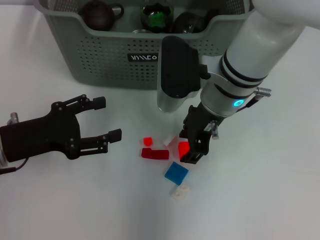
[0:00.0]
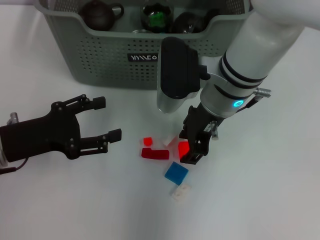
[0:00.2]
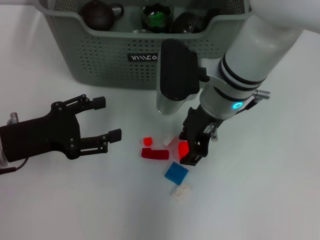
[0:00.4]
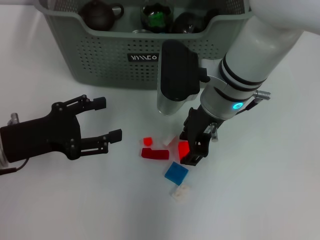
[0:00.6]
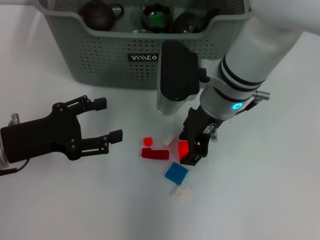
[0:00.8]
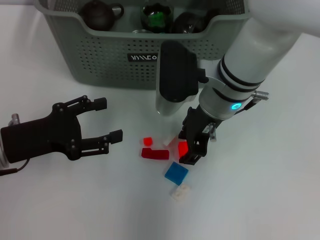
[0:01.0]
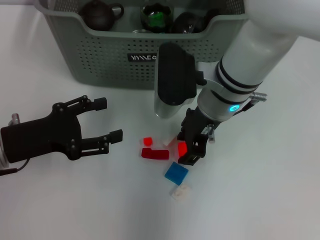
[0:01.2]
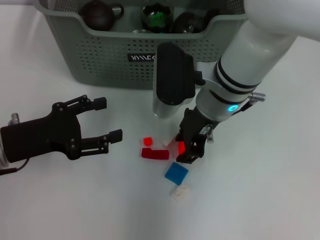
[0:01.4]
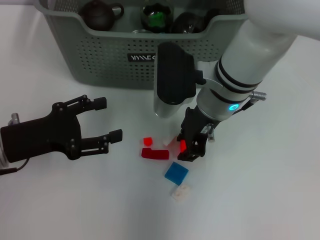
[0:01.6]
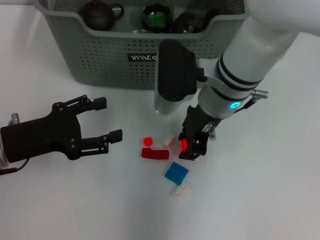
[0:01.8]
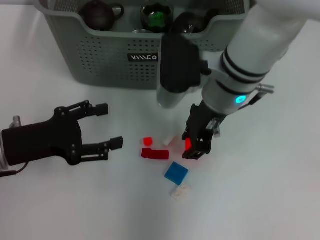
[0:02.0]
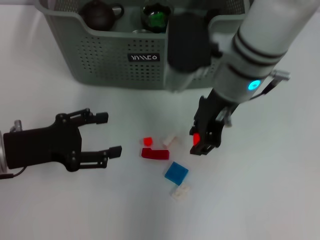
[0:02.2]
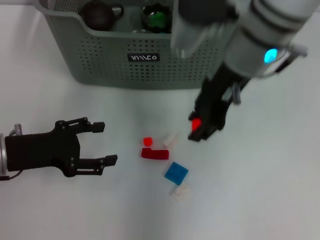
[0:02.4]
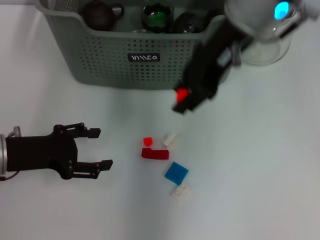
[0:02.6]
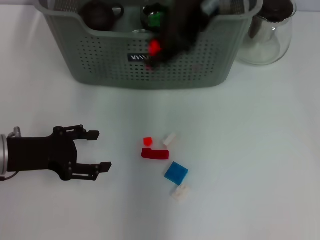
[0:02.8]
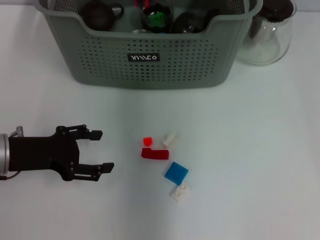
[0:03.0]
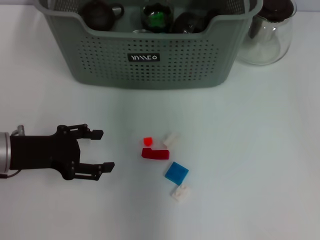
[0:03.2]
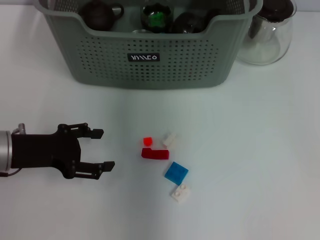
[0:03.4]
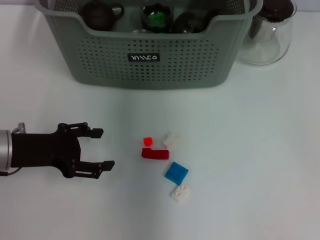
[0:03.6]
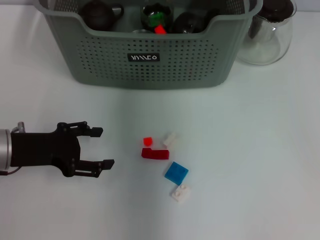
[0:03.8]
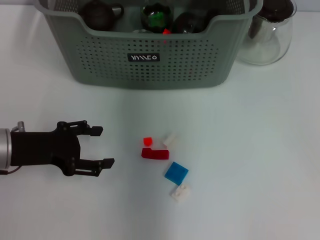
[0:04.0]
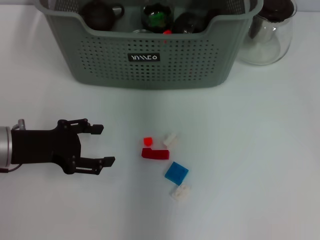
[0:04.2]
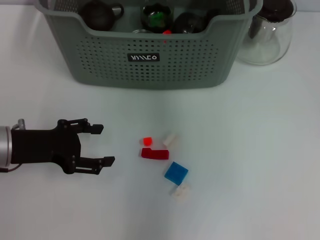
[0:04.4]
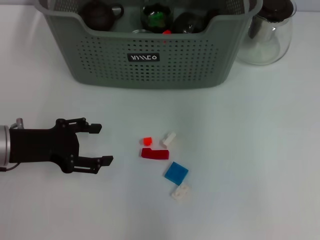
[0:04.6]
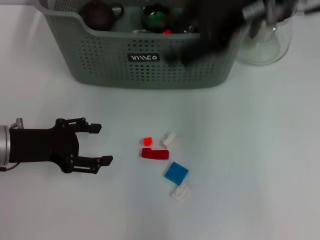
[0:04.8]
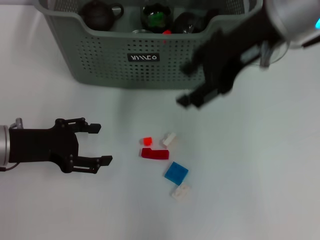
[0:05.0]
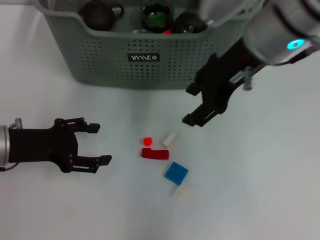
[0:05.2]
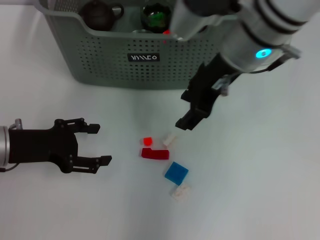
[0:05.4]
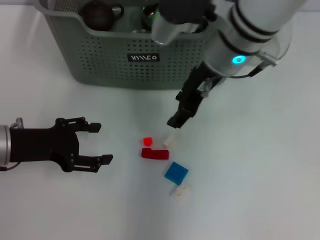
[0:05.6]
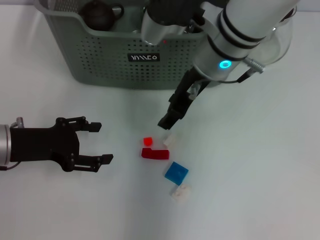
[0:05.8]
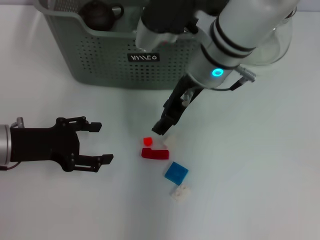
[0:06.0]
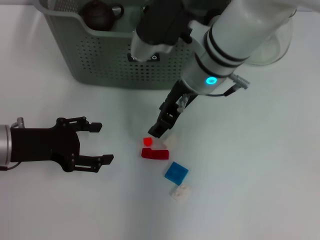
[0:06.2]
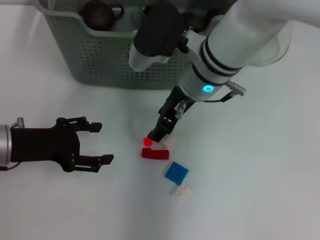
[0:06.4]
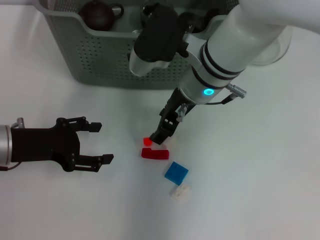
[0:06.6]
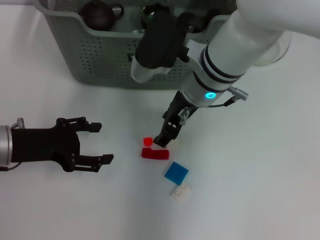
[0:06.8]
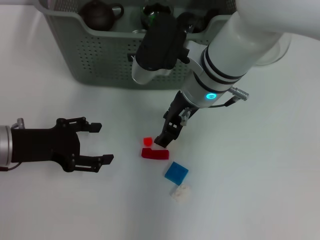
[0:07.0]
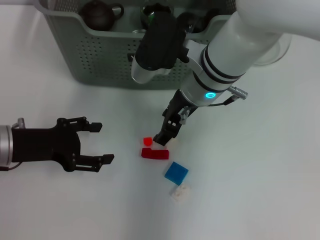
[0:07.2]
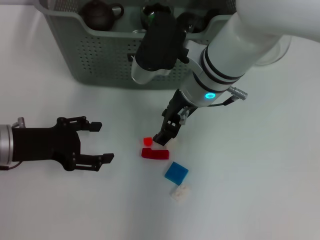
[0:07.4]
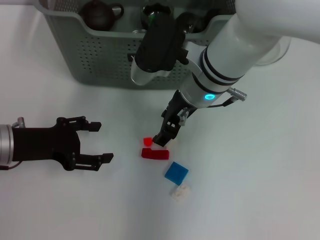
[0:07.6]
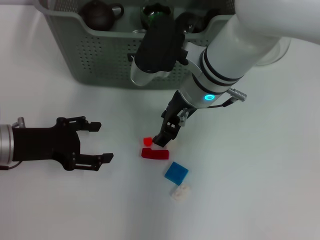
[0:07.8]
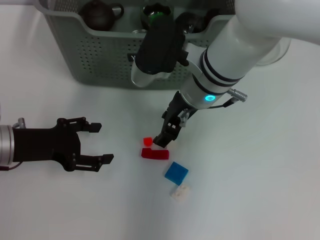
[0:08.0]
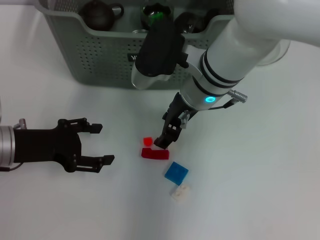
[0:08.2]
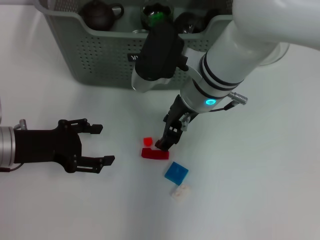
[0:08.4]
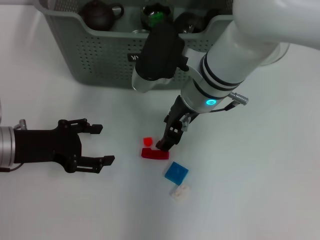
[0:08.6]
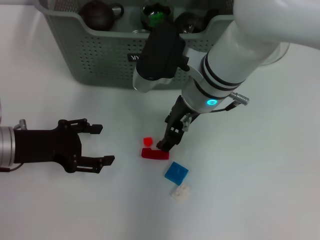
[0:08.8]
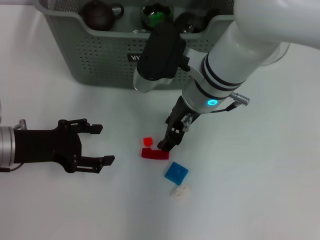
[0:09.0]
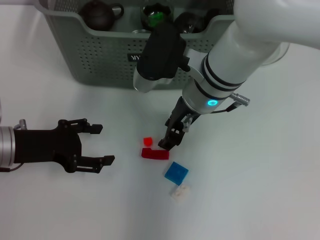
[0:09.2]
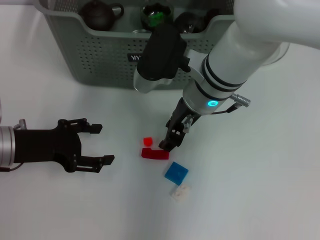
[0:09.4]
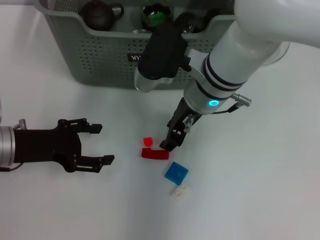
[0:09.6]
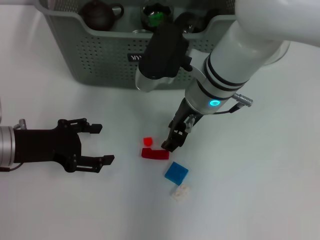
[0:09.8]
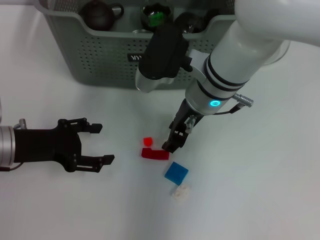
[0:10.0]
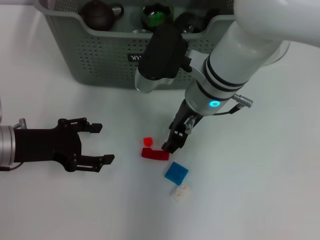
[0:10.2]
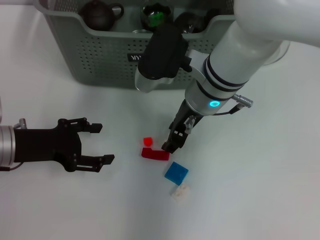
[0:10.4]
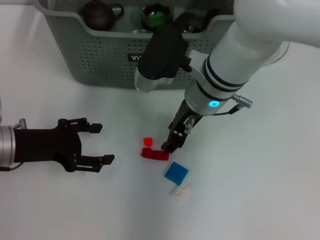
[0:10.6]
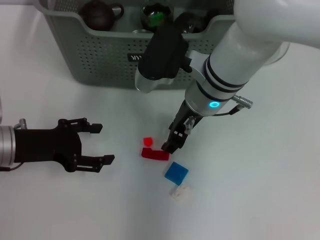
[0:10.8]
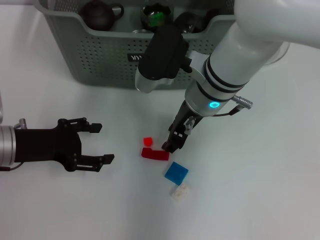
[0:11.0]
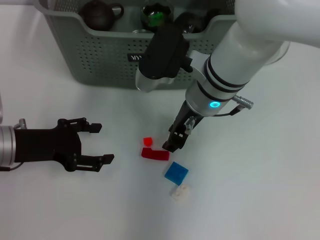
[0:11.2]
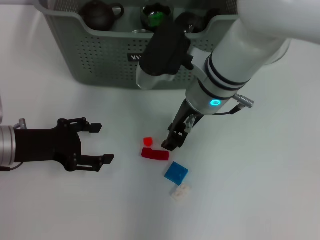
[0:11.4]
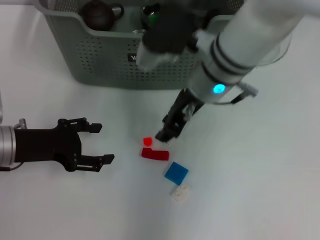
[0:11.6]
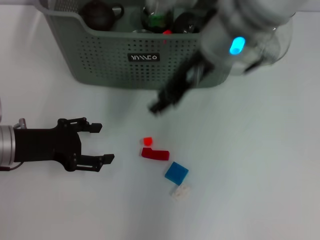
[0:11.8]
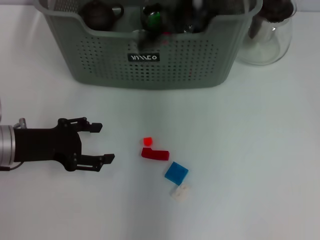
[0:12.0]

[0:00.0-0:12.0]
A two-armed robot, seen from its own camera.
Task of the whole recording: pick up the teacup on the table and place it into the storage bin, pick up the block on the table and place it into the storage bin.
Step, 0:01.6 to 0:03.8: Place the orange block in the storage box with right gripper.
Step, 0:04.0 to 0:11.2: Grasp the white block with right gripper.
0:00.0 to 0:01.6: Neither gripper changes place.
0:01.6 to 0:03.0: The right gripper moves upward, some 20 cm.
0:03.0 to 0:04.4: The right gripper reaches roughly 10 cm downward, then returns, and opens.
0:04.4 to 0:06.0: The right gripper heads downward, covering roughly 15 cm.
0:06.0 to 0:07.6: There are only small adjustments of the grippers.
0:07.6 to 0:10.4: The two grippers keep their place.
0:10.4 to 0:12.0: The right gripper travels upward by about 20 cm.

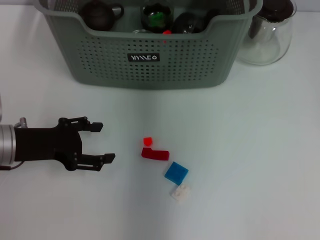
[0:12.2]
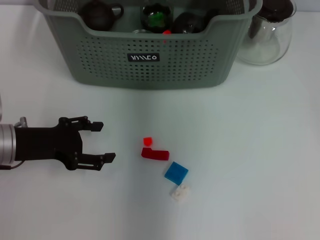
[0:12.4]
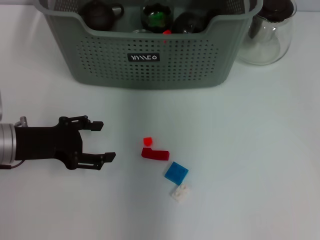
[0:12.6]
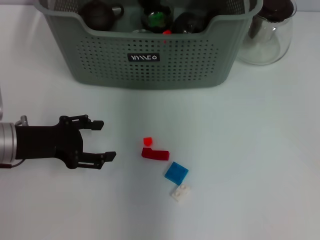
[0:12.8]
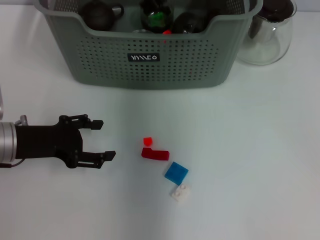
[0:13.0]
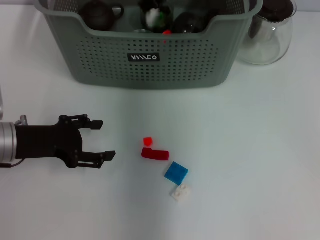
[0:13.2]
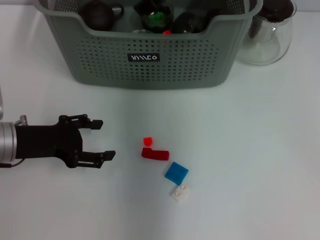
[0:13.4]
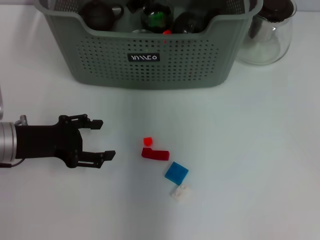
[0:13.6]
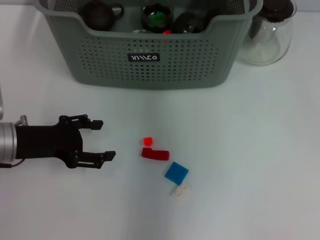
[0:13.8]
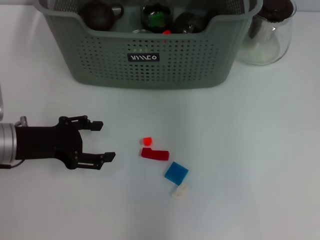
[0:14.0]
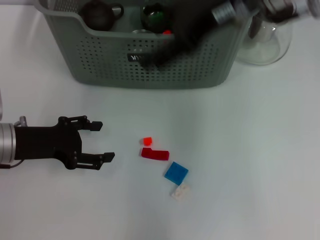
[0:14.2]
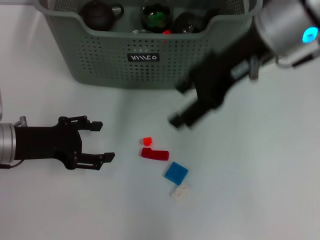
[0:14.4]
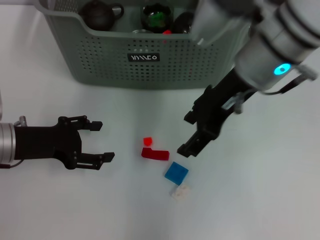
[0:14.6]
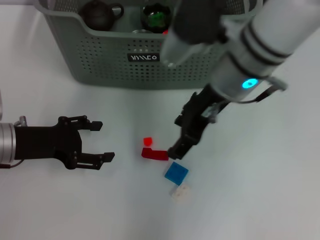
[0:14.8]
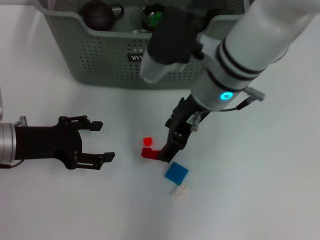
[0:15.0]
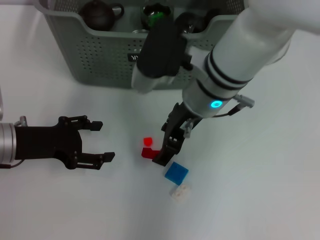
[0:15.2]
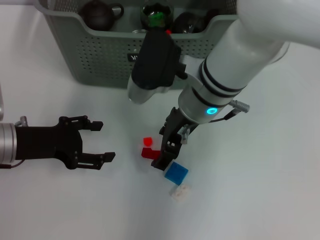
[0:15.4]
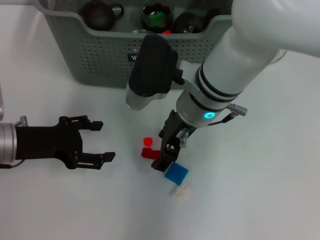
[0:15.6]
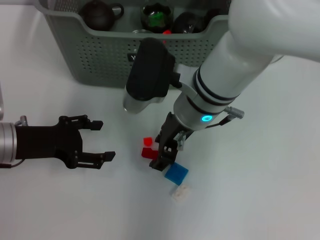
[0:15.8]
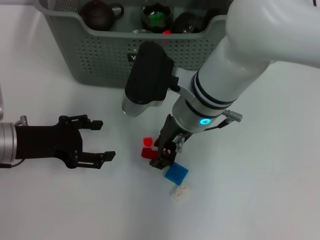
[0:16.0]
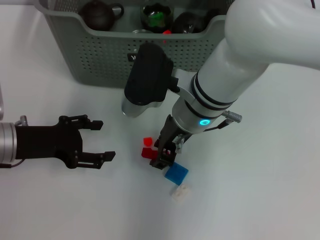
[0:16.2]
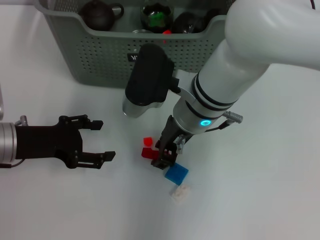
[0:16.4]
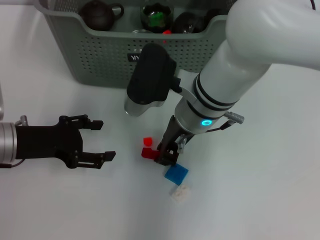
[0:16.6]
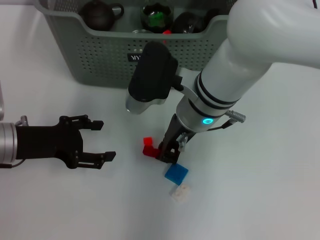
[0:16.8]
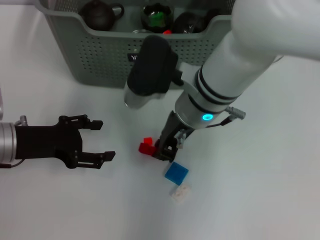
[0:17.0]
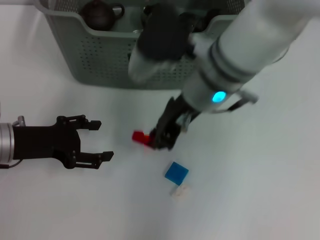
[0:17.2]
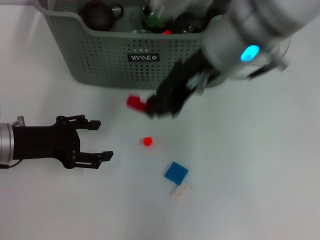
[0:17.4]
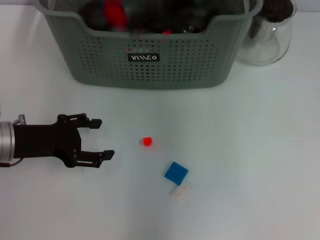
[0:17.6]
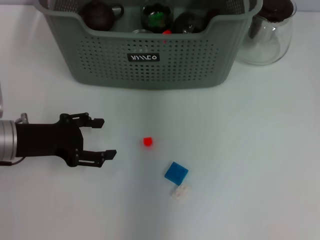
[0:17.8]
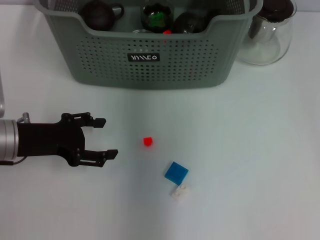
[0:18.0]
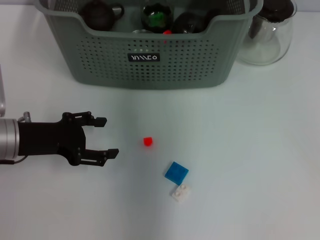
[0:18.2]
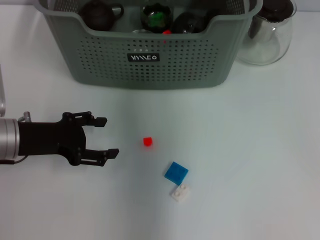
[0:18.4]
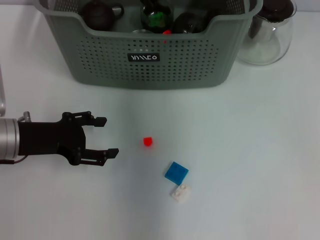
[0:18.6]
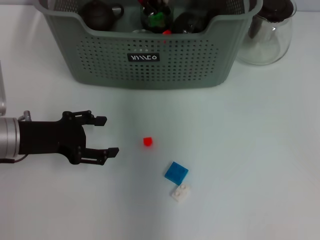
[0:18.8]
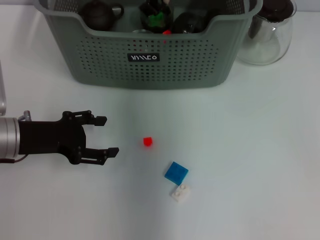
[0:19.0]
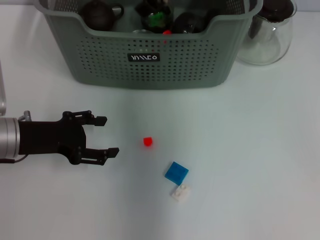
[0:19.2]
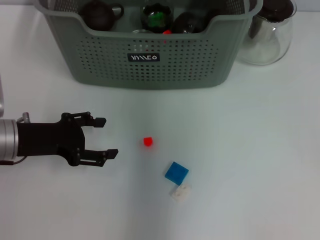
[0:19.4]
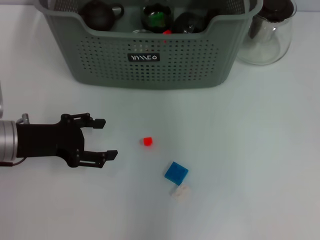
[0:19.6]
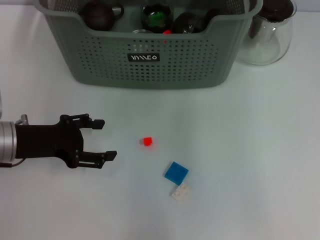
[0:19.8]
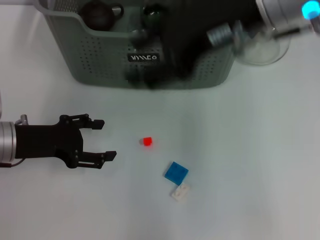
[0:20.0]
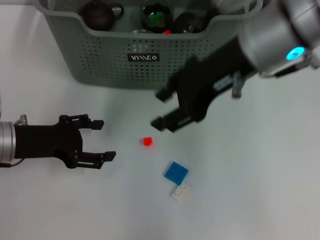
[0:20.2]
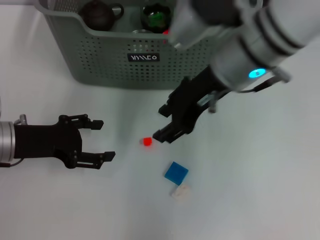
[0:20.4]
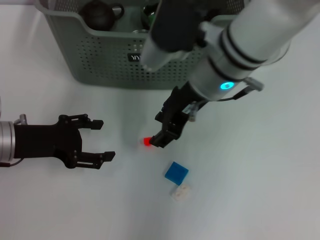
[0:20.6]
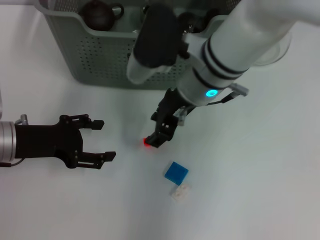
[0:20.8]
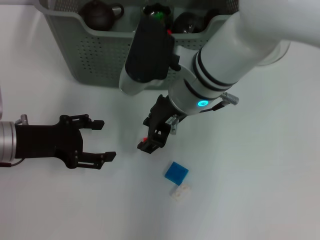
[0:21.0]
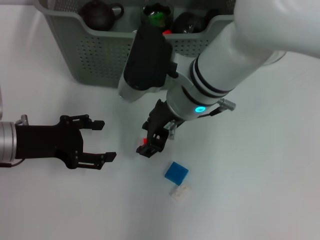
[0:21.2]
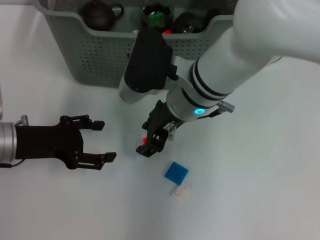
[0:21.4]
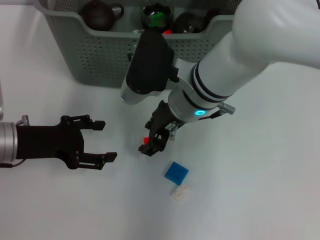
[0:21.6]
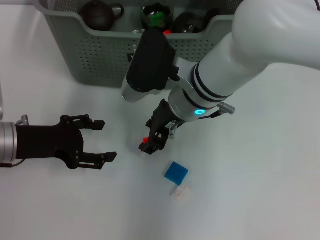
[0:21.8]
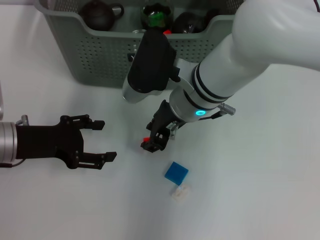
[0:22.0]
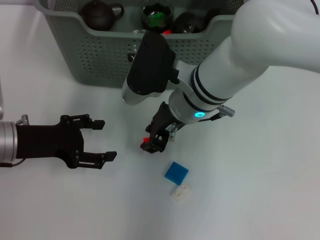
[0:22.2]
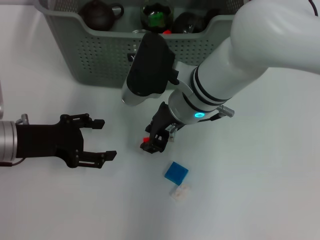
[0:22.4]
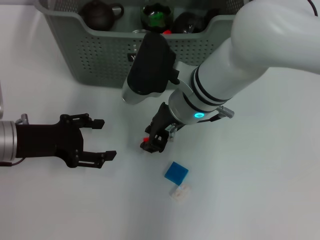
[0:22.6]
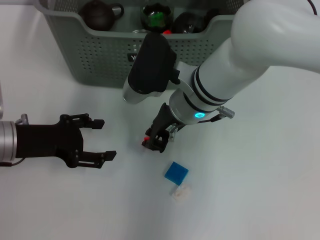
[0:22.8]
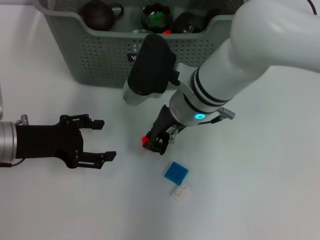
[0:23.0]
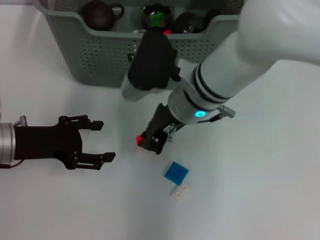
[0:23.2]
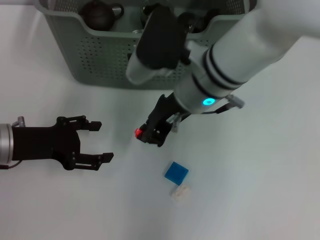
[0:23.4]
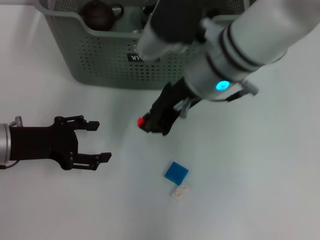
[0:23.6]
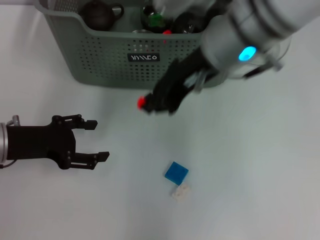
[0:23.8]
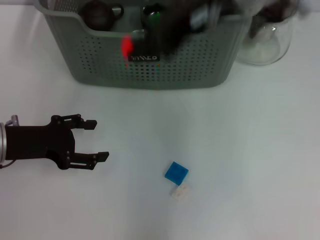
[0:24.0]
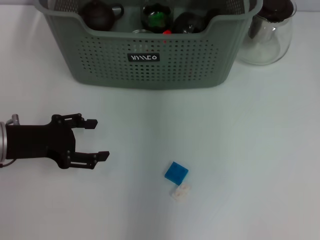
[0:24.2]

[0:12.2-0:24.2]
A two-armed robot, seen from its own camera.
Task of the whole recording: pick up the teacup on the table and place it into the storage bin, pick up the block on the table and place it into the storage bin.
Step, 0:12.2 to 0:13.2: Place the white block in the storage box with right gripper.
Step, 0:13.4 to 0:16.8: Grasp the red block with right gripper.
Step, 0:17.0 to 0:23.0: Grasp the orange block with right gripper.
0:13.8 to 0:15.2: The right gripper heads downward and backward, covering some 15 cm.
0:15.2 to 0:16.6: The right gripper closes its fingers.
0:16.6 to 0:18.2: The right gripper moves upward and forward, about 20 cm.
0:18.2 to 0:19.8: The right gripper is displaced backward and to the right by about 10 cm, and opens its fingers.
0:19.8 to 0:21.2: The right gripper travels downward by about 20 cm.
0:21.2 to 0:22.6: There are only small adjustments of the grippers.
0:22.6 to 0:24.2: The right gripper shifts about 25 cm upward.
